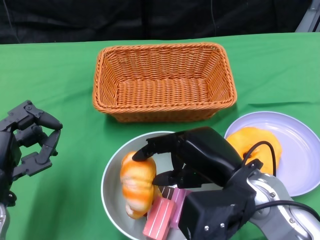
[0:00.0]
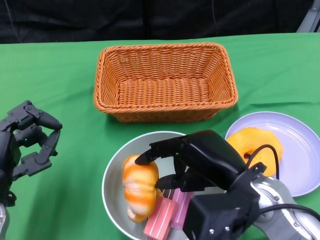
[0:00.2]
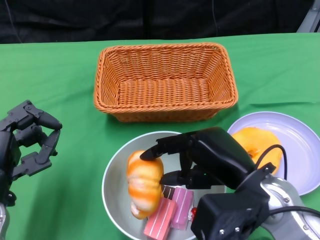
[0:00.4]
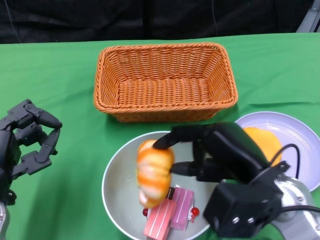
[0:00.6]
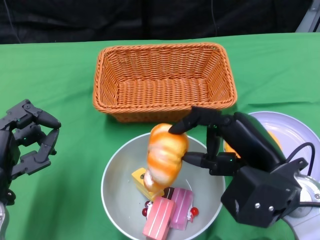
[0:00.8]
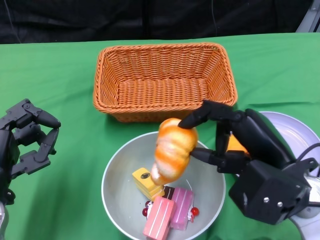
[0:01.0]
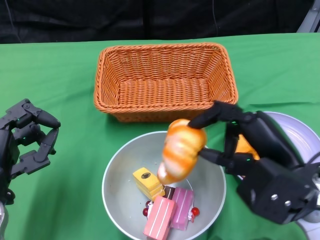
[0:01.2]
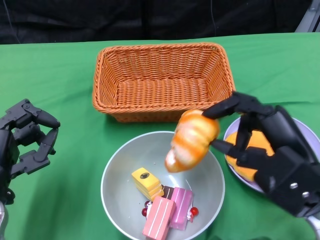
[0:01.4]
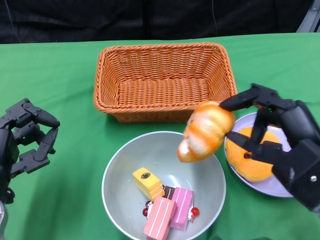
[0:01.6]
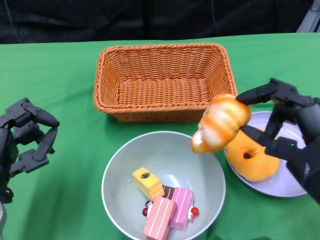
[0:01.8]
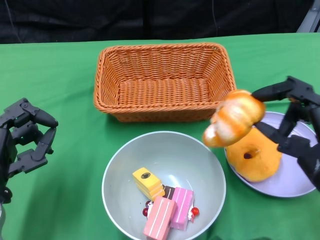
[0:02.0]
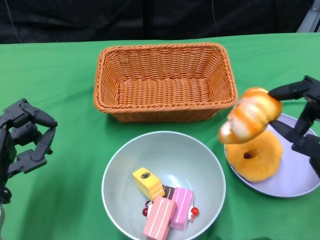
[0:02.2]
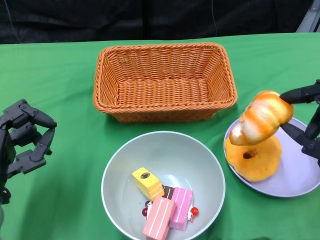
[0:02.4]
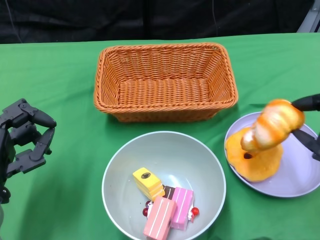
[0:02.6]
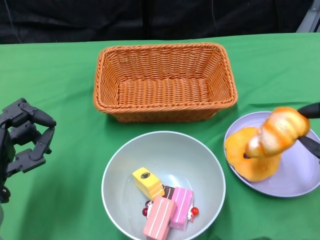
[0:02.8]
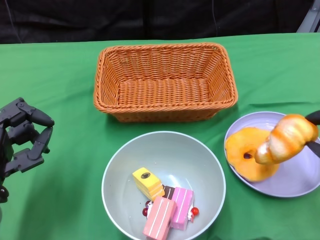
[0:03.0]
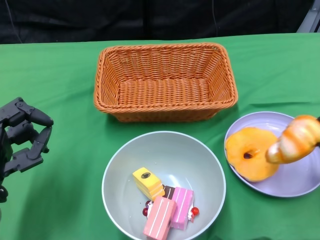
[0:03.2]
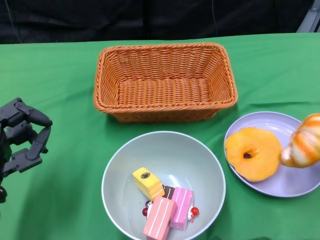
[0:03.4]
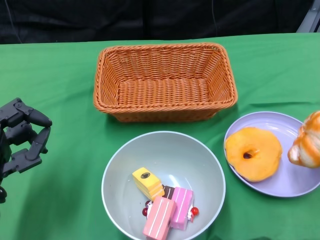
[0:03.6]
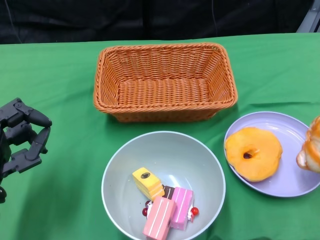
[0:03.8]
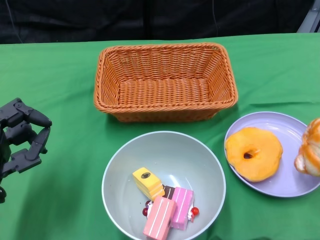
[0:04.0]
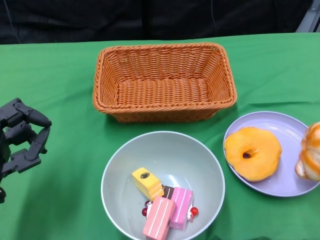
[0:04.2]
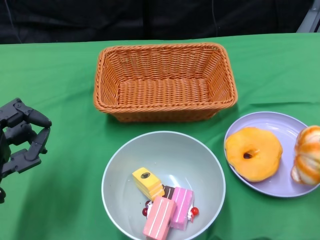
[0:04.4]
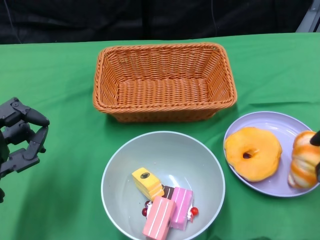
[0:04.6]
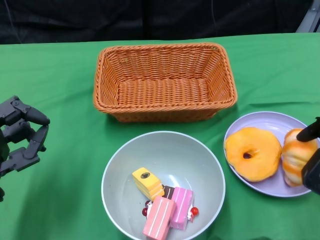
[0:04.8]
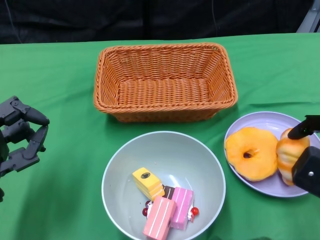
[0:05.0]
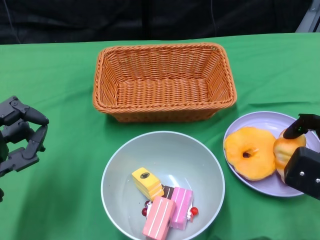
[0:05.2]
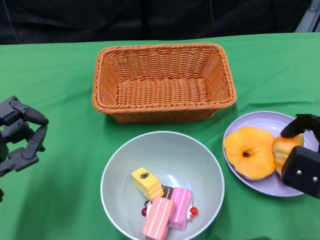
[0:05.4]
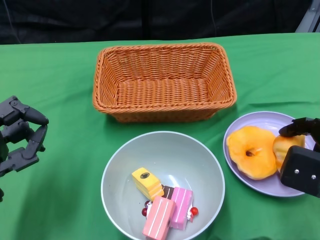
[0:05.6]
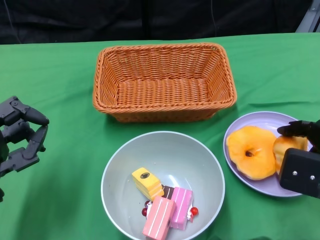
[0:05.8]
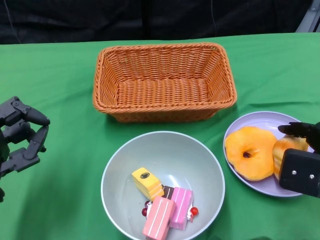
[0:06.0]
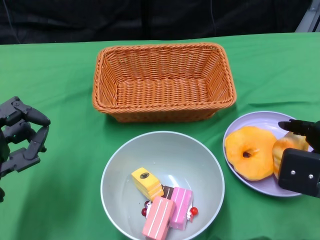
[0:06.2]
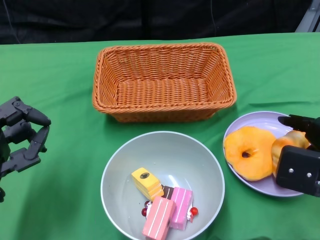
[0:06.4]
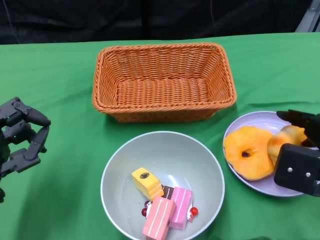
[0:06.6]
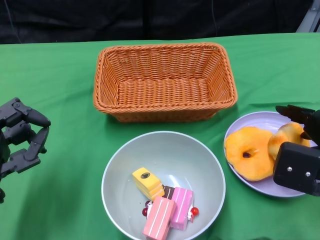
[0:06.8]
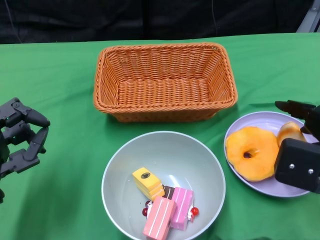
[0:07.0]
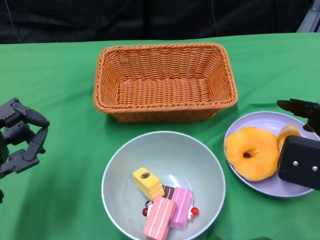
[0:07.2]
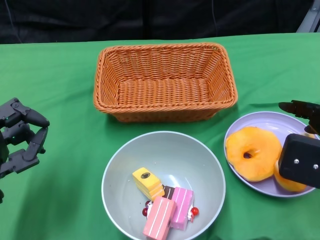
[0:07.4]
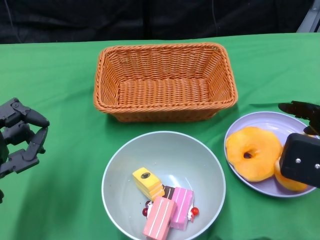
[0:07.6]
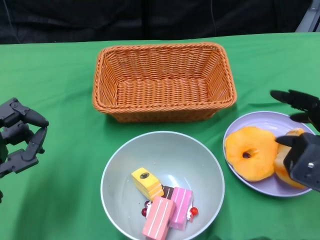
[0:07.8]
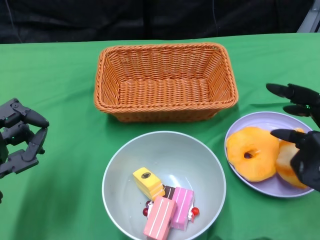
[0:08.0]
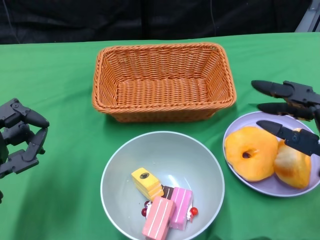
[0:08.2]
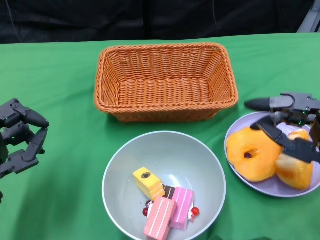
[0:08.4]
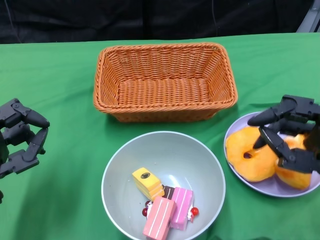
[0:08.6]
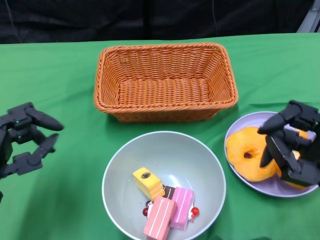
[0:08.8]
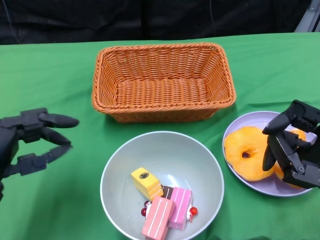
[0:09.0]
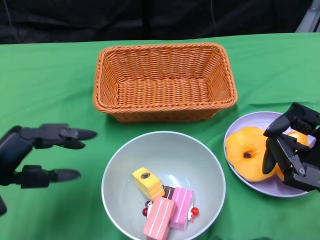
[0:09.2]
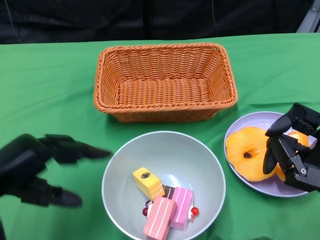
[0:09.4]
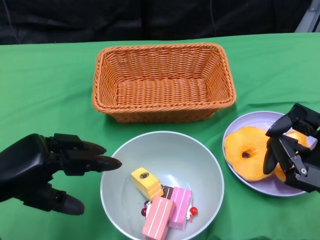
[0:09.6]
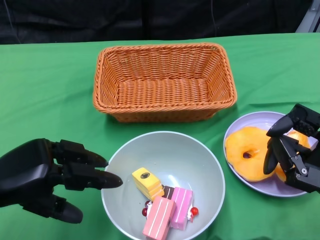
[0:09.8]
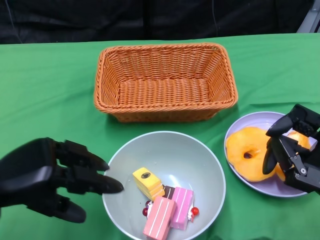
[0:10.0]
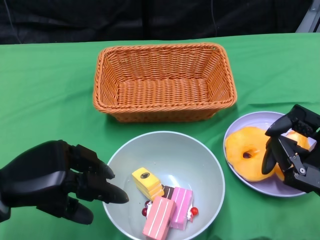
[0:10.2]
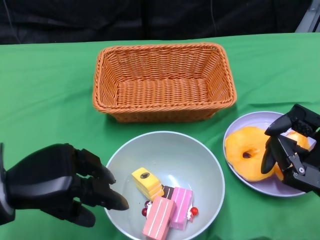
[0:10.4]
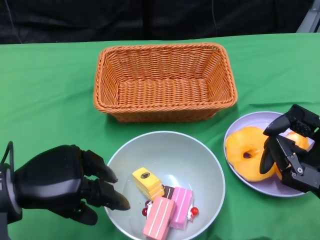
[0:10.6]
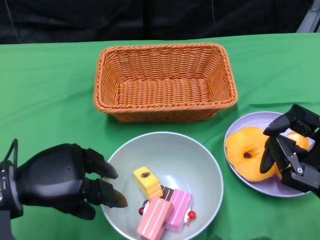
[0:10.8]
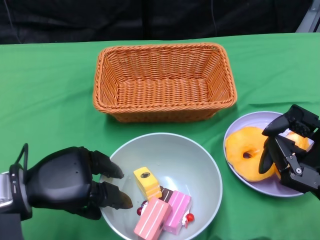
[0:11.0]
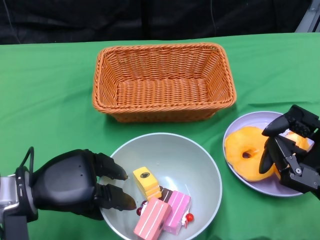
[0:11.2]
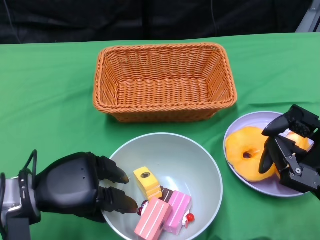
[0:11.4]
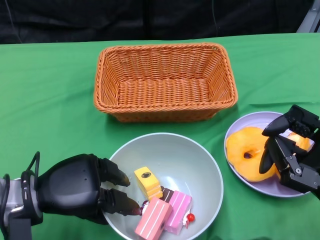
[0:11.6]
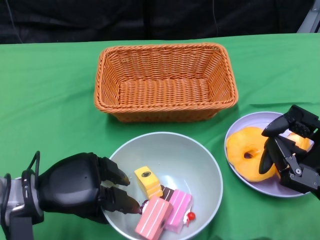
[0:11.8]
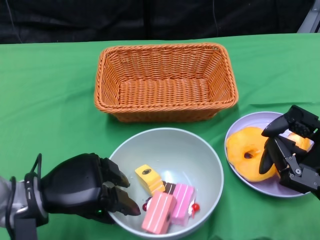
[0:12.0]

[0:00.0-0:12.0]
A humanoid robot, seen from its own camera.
Step, 0:00.0 to 0:07.8: Pick up the bread with the right gripper and place it on the plate.
0:00.0 to 0:01.6: The right hand shifts roughly 10 cm to the right.
0:01.6 to 0:03.0: The right hand shifts approximately 10 cm to the right.
0:04.4 to 0:06.0: The right hand changes place by roughly 5 cm.
0:06.0 to 0:07.6: The hands stay close to where they were, moving slightly.
0:07.6 to 0:09.0: The right hand ends up approximately 5 cm from where it was.
0:10.4 to 0:12.0: The left hand heads downward, covering some 5 cm.

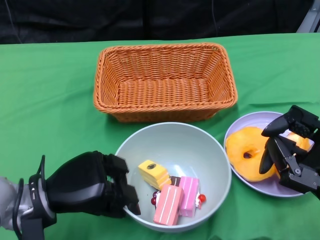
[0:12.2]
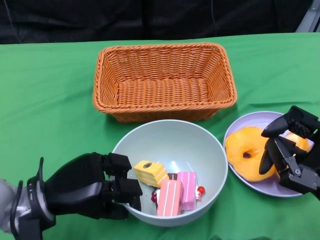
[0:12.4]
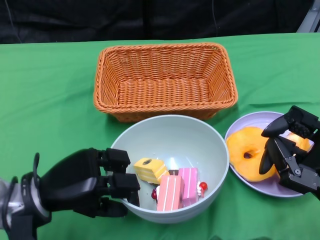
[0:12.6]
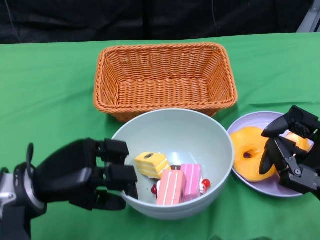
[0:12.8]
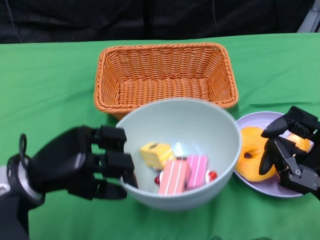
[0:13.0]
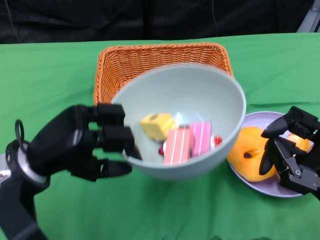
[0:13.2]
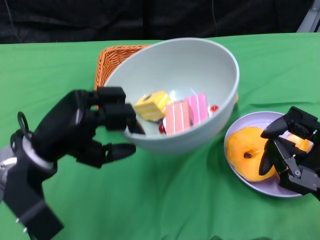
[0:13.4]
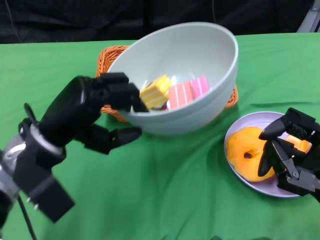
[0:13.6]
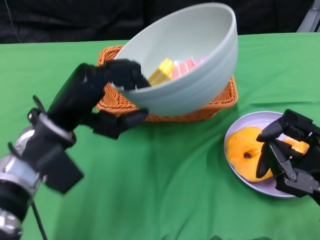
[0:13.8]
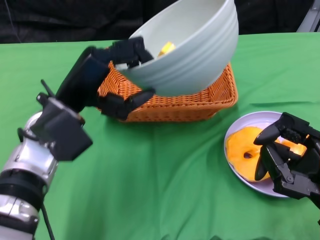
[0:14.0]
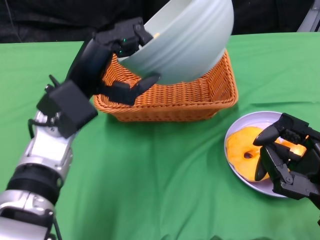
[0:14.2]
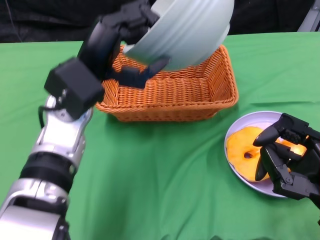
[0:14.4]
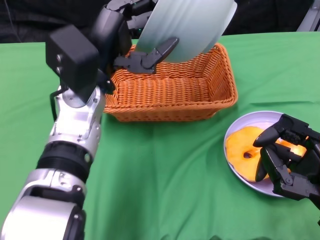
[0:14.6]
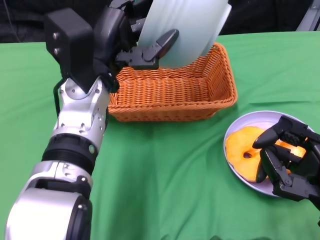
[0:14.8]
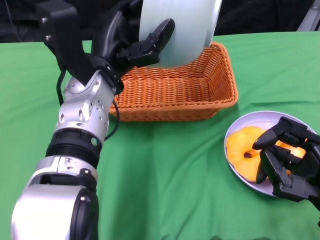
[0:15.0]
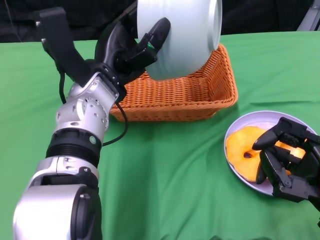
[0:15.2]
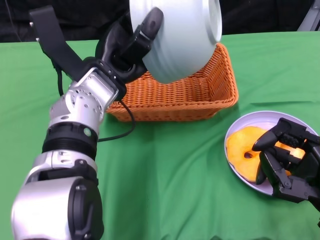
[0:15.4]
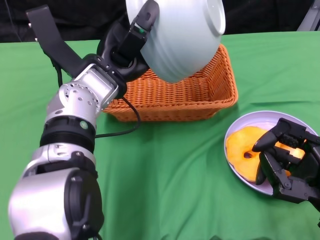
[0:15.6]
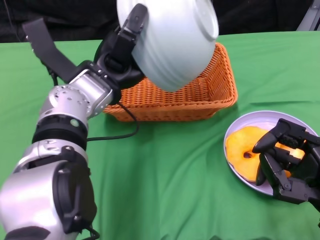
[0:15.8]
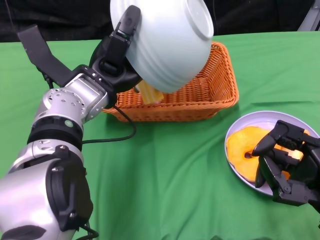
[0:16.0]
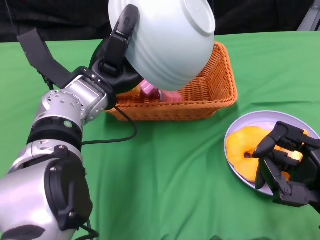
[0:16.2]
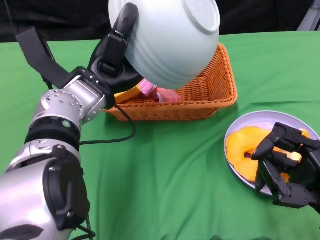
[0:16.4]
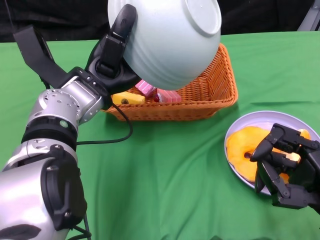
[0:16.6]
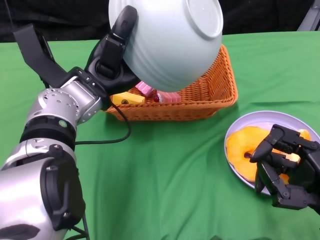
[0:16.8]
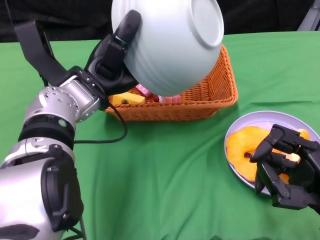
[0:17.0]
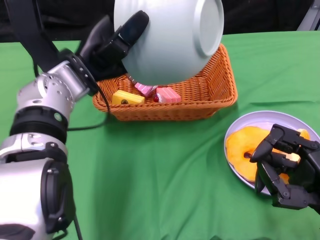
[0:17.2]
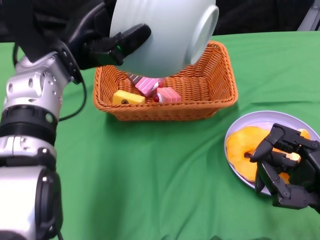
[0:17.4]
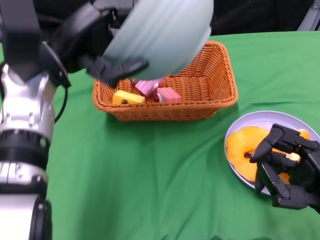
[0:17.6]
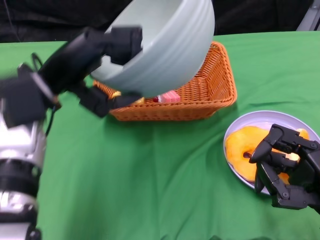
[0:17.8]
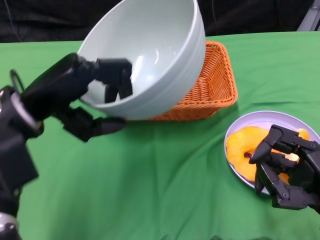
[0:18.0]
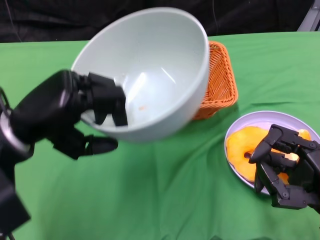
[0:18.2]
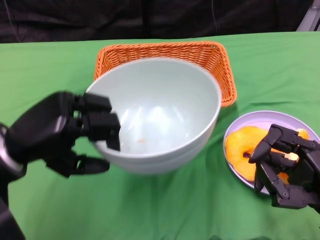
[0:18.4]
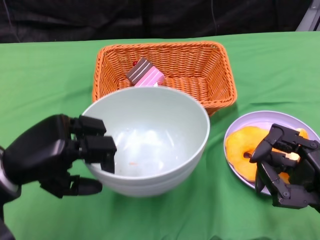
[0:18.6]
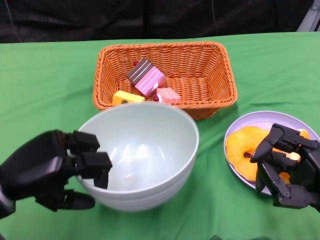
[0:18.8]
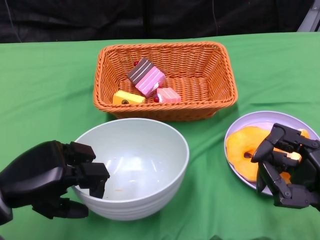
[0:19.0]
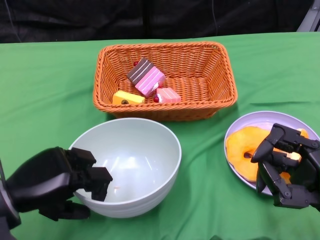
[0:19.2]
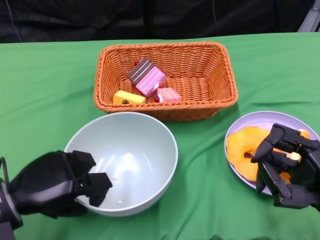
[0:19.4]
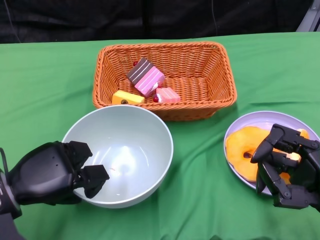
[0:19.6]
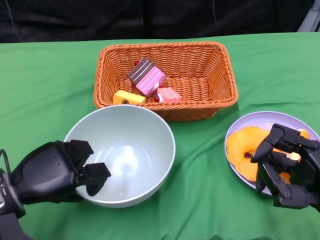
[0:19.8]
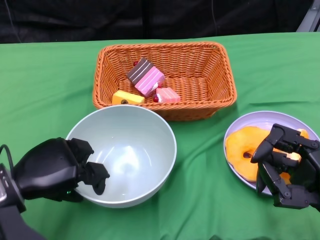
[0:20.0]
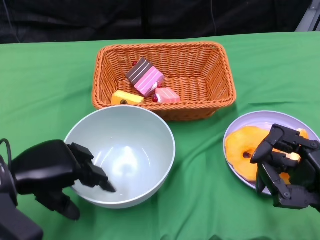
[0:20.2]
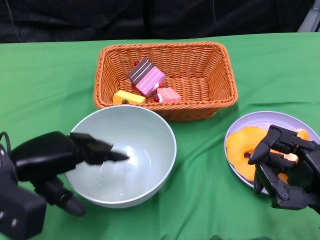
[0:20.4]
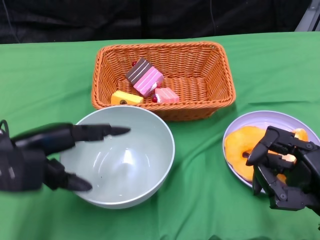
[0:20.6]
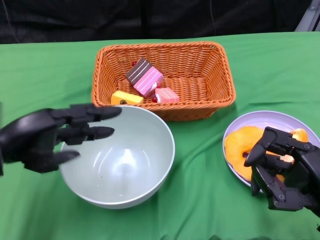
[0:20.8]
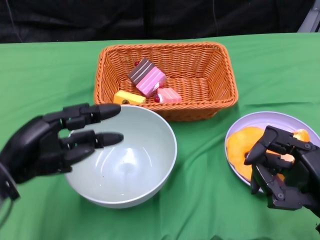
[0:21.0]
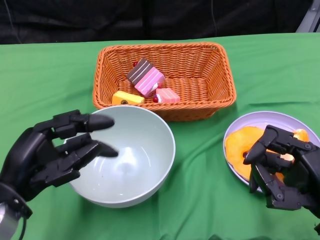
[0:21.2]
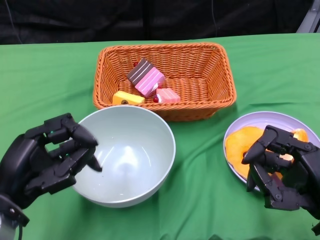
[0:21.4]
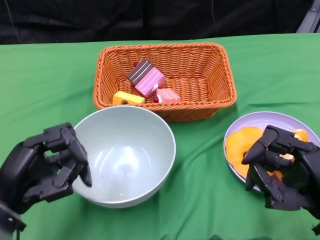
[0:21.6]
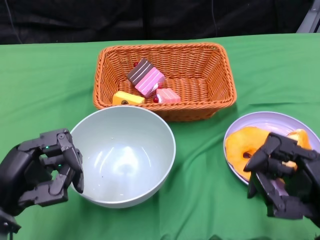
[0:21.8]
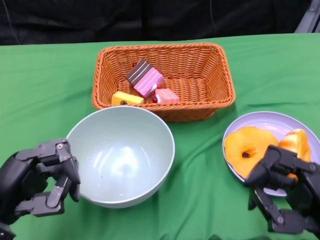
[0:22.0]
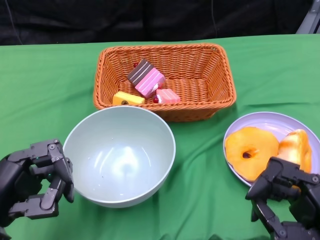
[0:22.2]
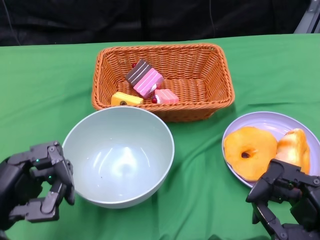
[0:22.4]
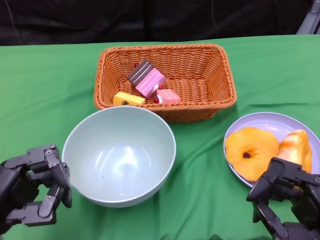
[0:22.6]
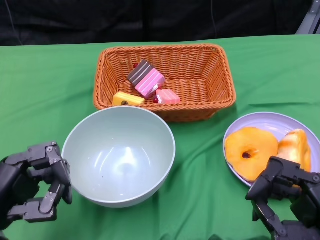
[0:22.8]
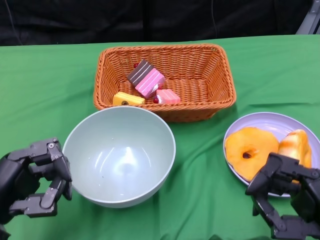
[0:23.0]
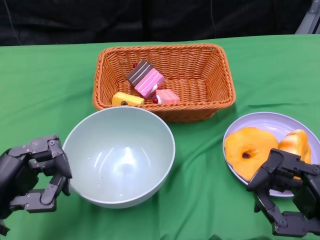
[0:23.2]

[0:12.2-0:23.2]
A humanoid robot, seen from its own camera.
Step, 0:12.6 to 0:17.6: Pour the cake into the basket with the left gripper.
Step, 0:17.8 to 0:21.4: Place the bowl on the table with the left gripper.
0:12.2 to 0:13.8: The left hand travels upward by about 10 cm.
0:13.8 to 0:15.4: The left hand travels to the right and forward by some 10 cm.
0:17.0 to 0:18.4: The left hand moves to the left and backward, about 15 cm.
0:18.4 to 0:20.0: The left hand travels downward by roughly 10 cm.
0:20.0 to 0:21.6: The left hand goes some 5 cm backward.
0:21.6 to 0:23.2: The hands make only small movements.
